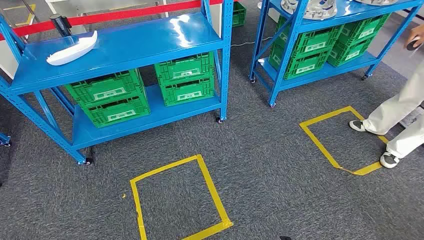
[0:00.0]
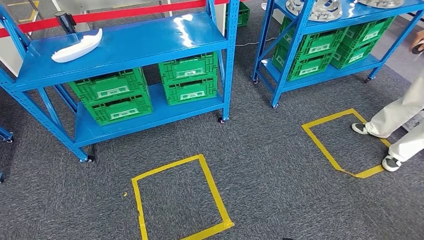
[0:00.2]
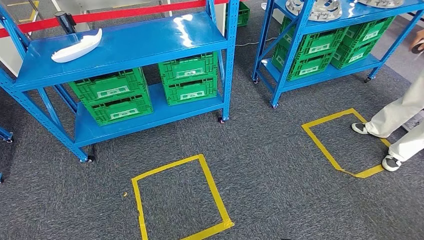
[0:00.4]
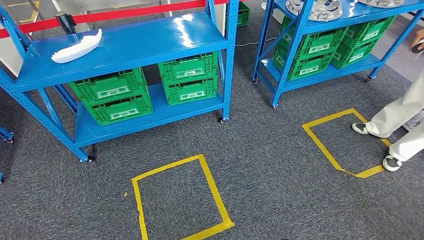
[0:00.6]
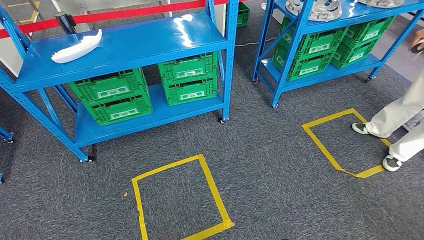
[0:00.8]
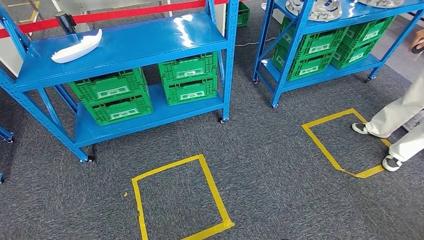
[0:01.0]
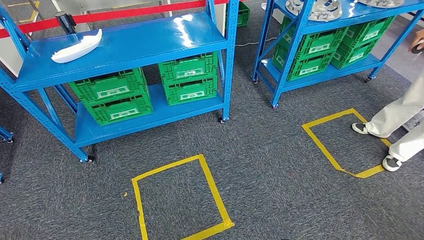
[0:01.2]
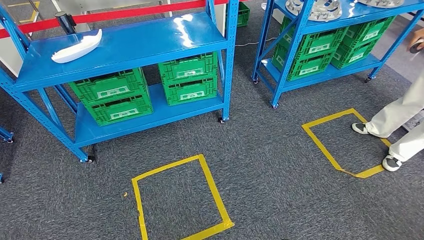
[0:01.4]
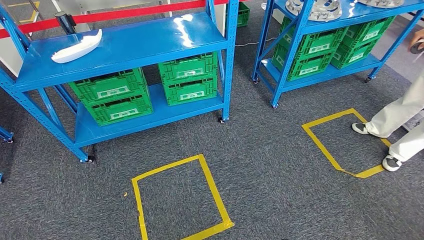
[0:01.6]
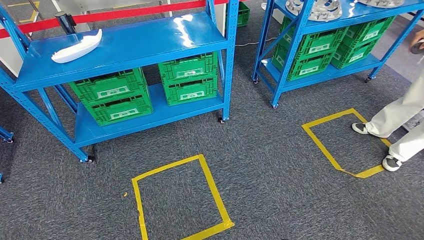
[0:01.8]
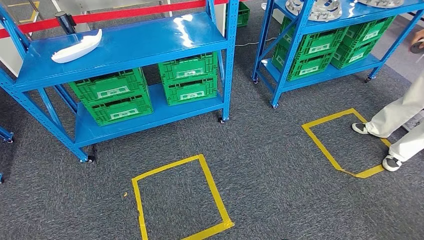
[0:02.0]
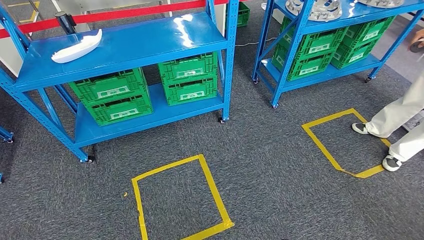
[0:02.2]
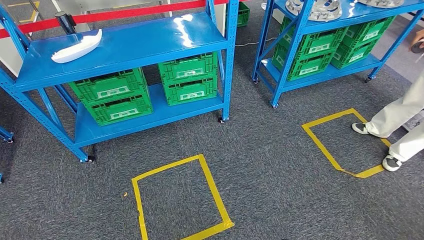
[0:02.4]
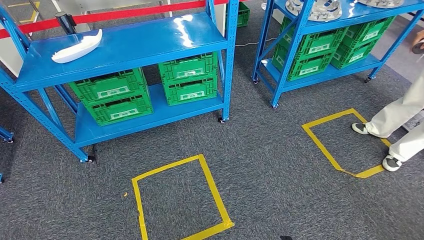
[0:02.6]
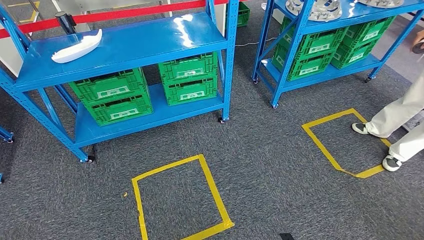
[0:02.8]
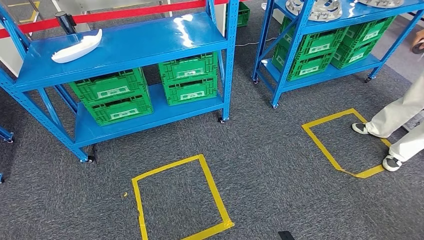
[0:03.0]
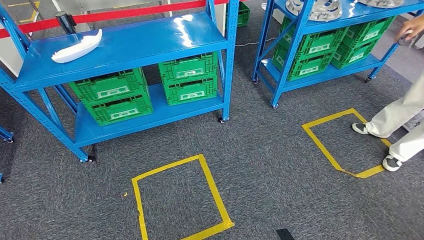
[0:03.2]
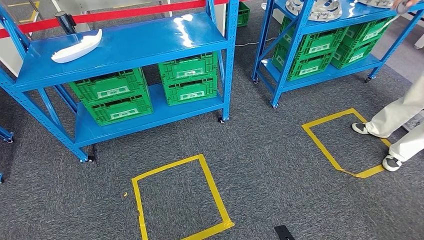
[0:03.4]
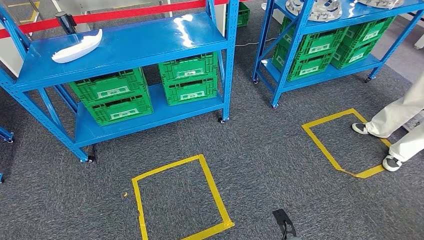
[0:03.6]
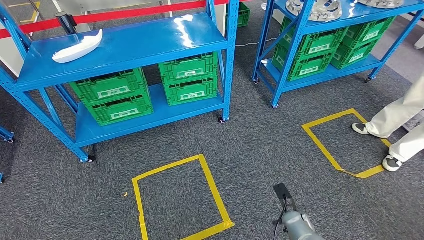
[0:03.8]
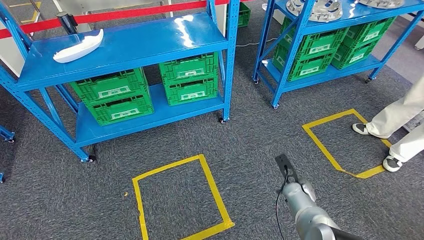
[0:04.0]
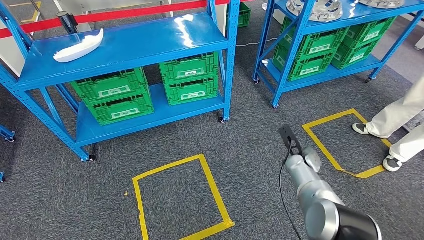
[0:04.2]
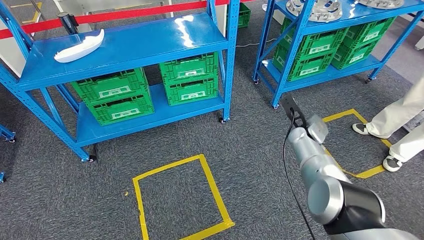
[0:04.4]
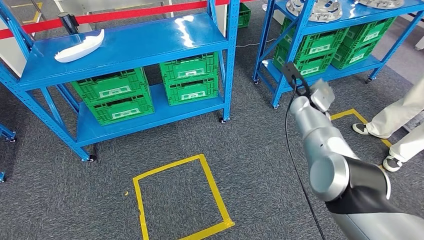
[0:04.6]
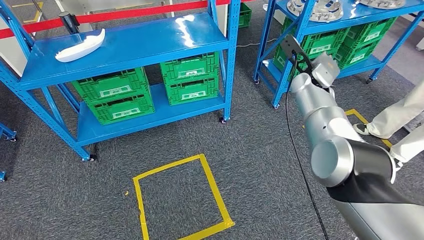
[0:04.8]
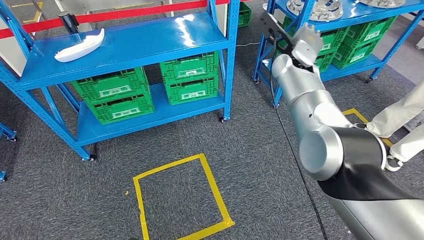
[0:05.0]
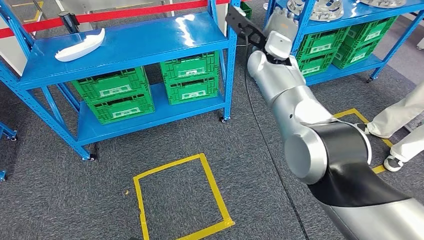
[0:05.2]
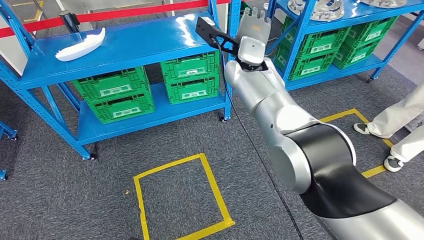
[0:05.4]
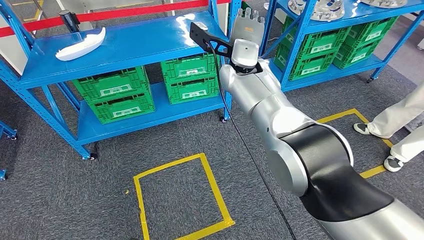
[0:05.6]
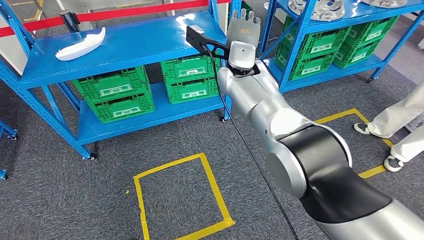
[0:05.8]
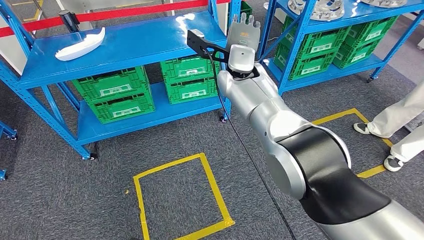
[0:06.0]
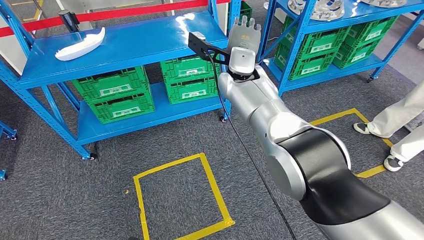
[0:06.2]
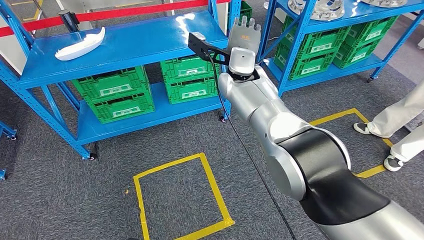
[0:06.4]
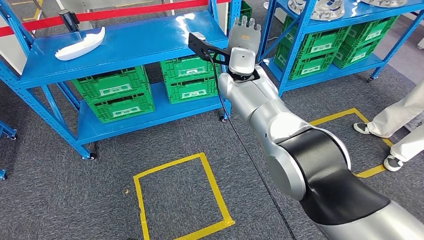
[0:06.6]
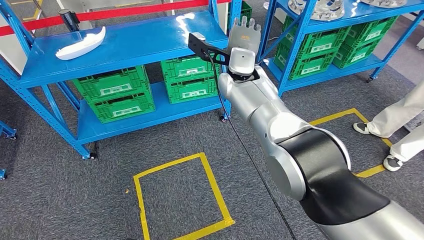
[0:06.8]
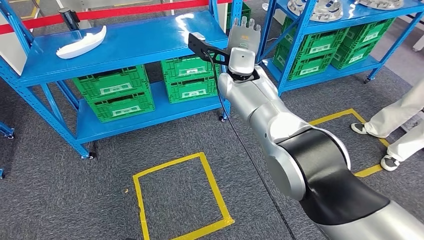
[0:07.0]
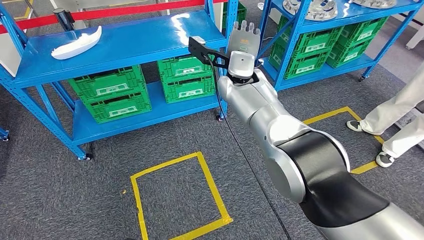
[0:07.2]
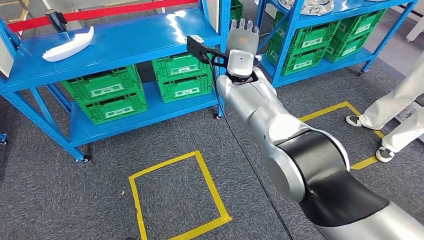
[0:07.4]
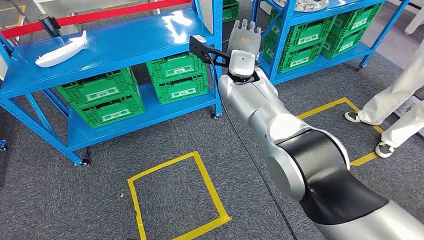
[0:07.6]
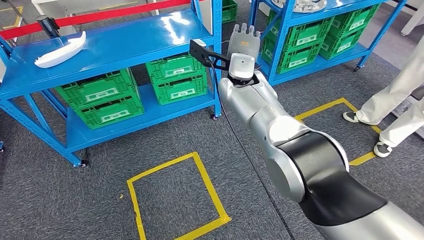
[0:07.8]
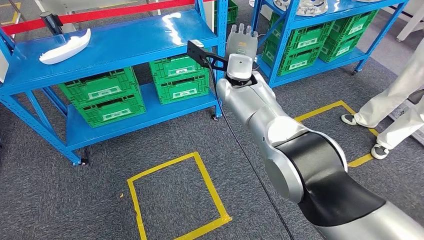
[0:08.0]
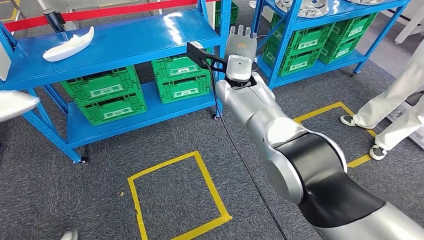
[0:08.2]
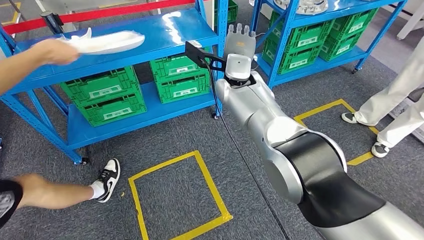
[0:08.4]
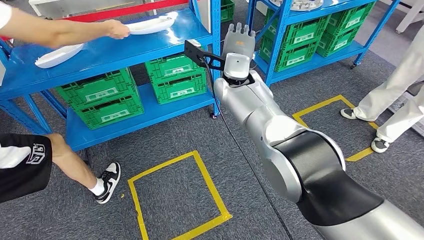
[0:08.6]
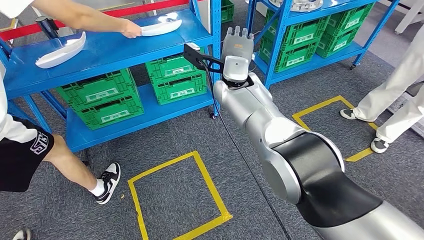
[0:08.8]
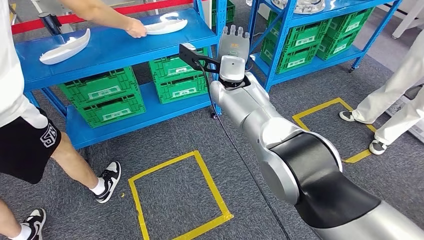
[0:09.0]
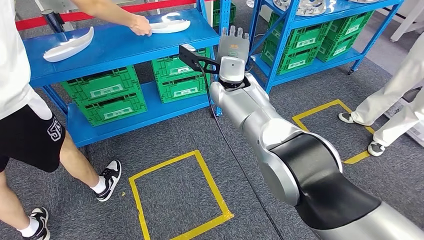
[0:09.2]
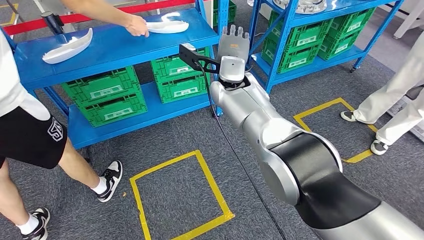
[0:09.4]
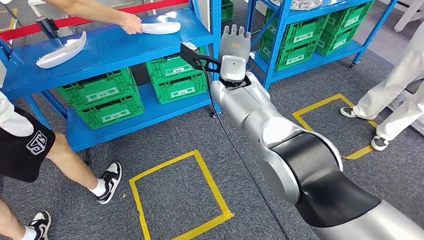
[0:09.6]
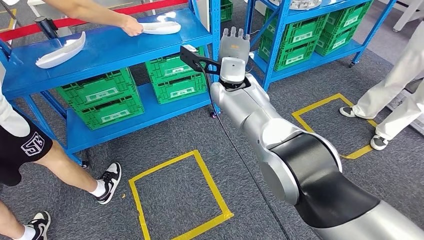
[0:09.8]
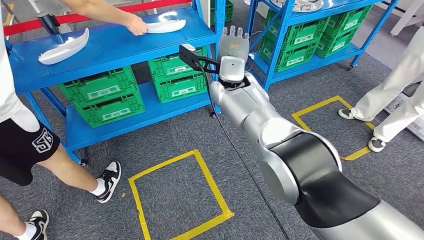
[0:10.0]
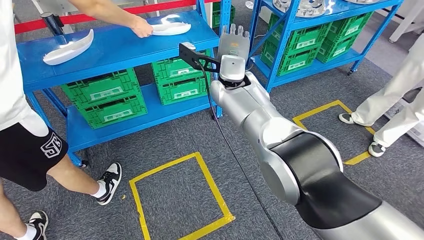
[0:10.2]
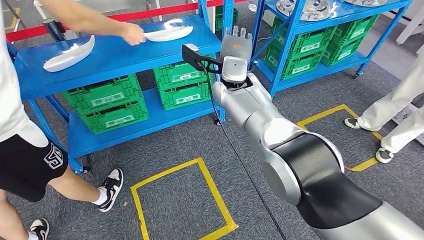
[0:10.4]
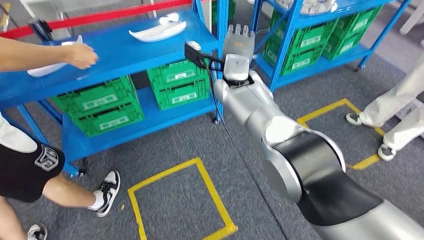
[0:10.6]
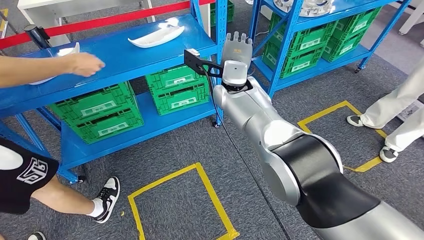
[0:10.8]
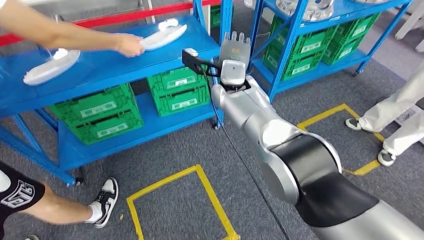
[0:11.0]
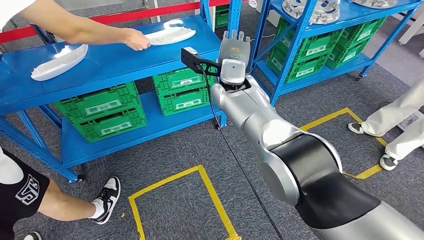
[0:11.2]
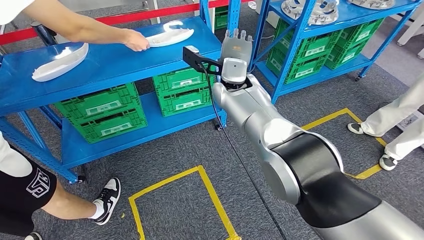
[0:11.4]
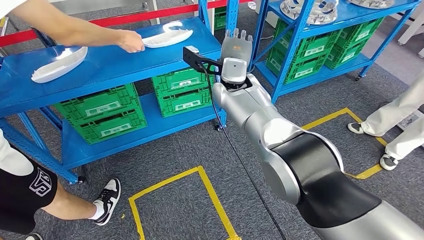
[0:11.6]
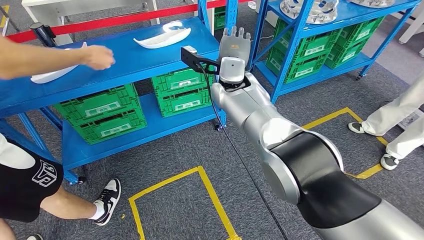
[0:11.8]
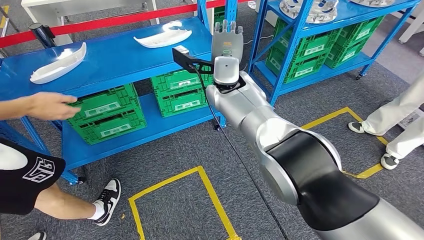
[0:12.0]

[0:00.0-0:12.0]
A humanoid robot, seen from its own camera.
0:03.0 to 0:04.4: The right hand travels forward and upward by about 40 cm, while the left hand travels forward and to the right by some 10 cm.

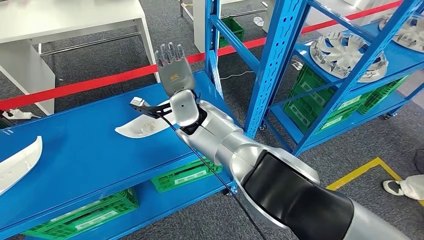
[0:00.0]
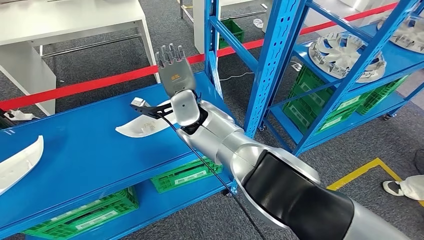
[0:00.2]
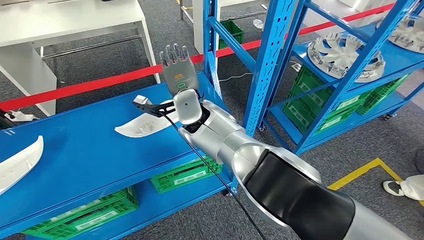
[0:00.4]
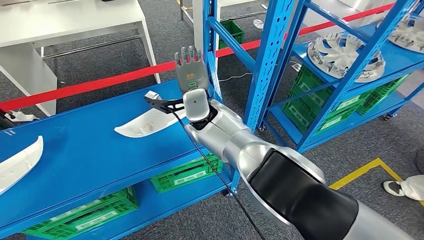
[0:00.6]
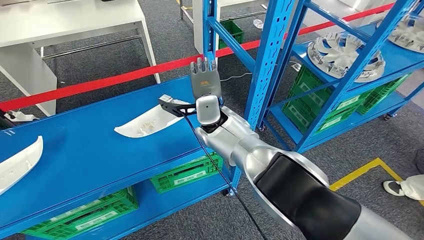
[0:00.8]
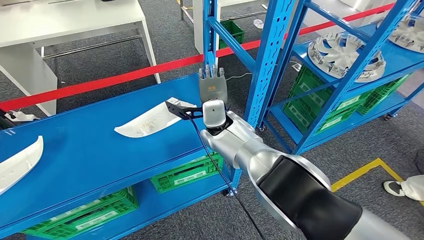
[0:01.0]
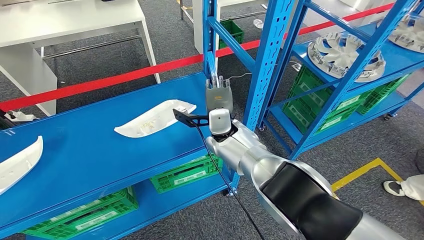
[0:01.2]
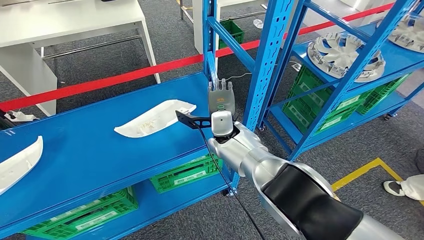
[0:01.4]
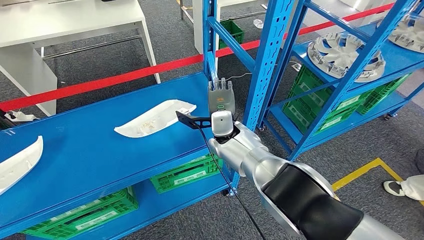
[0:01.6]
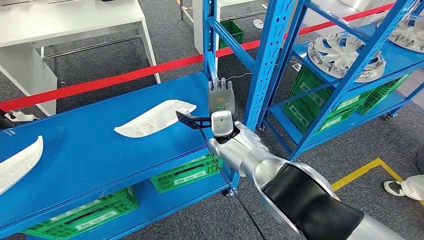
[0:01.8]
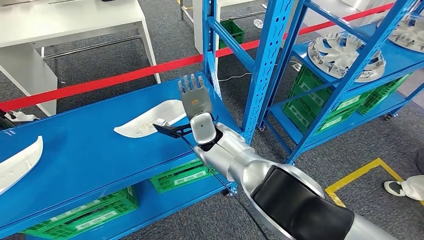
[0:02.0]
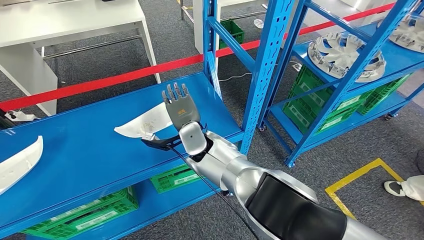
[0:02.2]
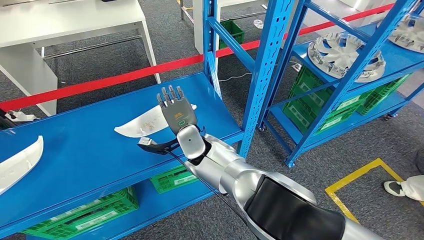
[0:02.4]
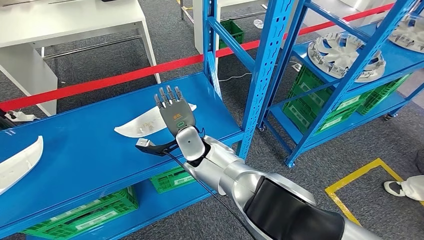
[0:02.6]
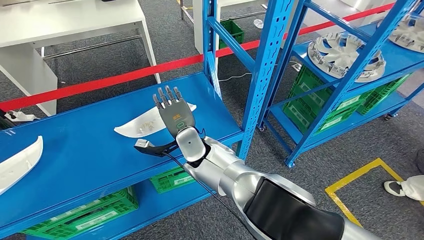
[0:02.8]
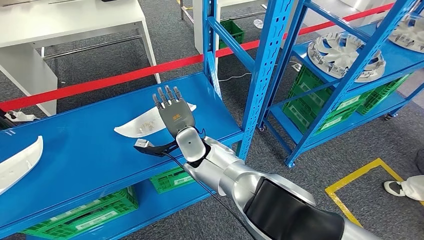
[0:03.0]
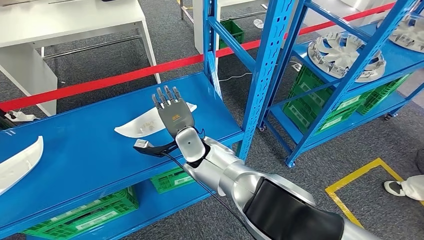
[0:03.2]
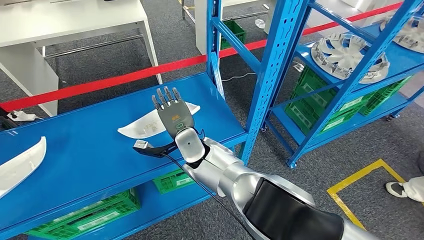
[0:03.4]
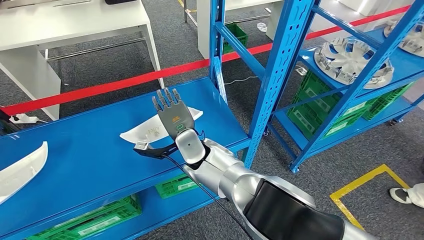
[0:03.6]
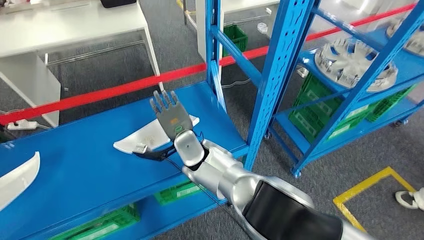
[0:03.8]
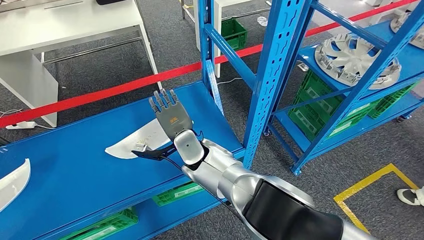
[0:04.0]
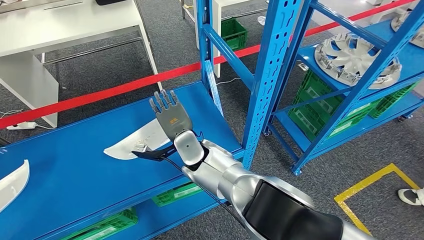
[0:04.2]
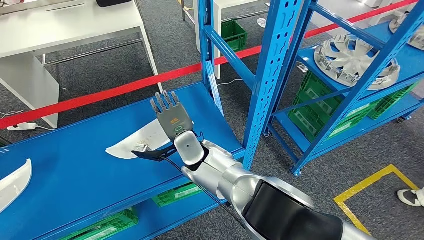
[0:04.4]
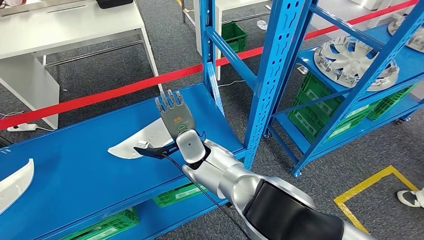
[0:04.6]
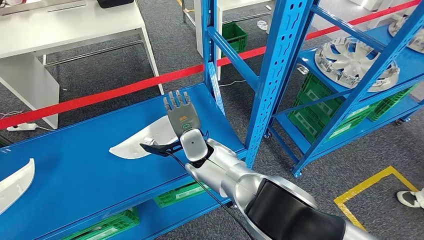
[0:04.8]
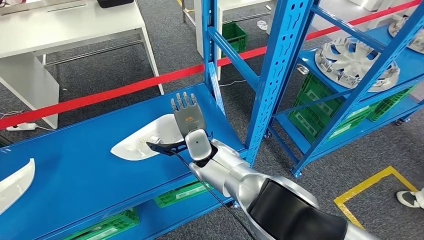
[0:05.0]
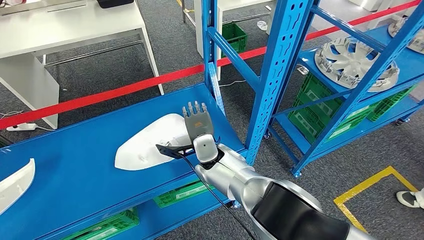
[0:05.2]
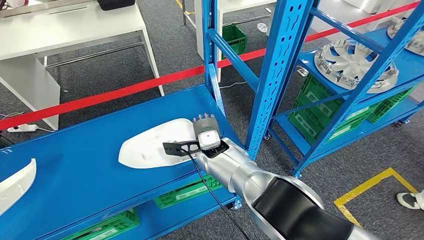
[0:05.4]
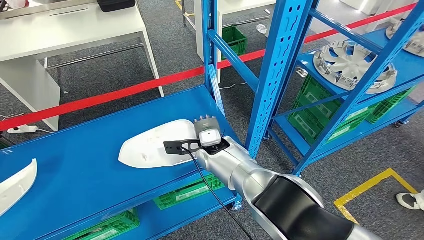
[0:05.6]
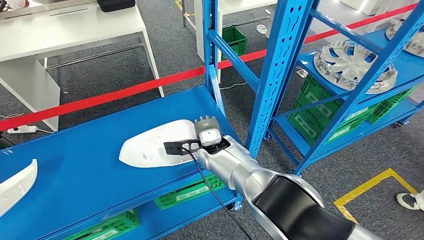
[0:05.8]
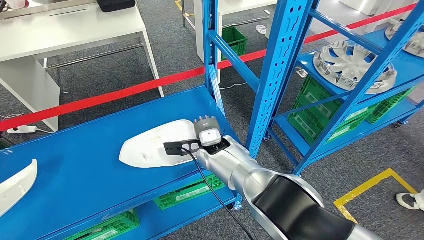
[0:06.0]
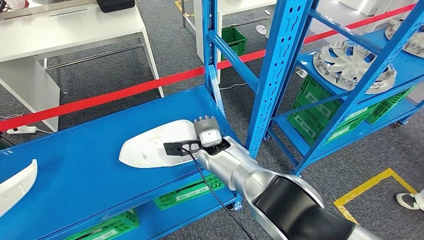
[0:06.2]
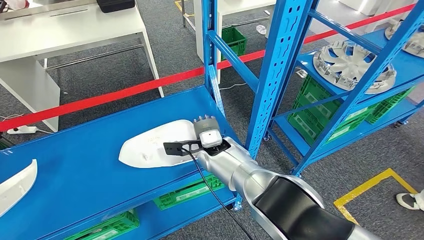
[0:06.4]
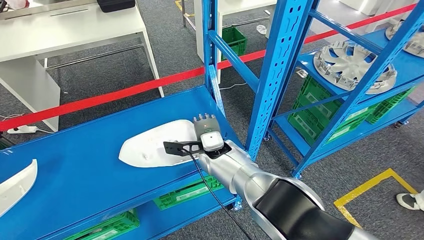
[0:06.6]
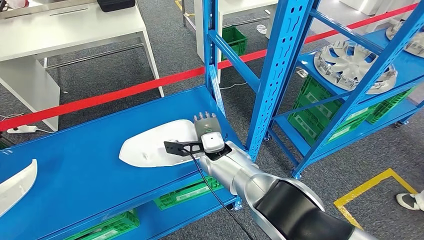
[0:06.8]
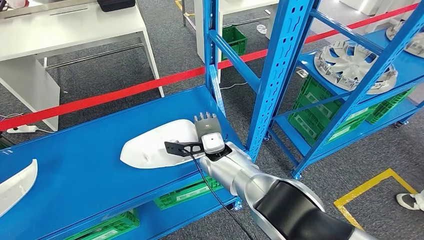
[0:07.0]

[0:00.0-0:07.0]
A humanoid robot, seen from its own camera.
0:01.4 to 0:02.8: The right hand travels to the left by about 10 cm.
0:05.6 to 0:07.0: There are only small adjustments of the hands.
